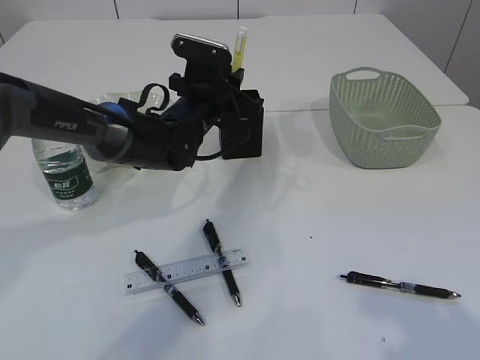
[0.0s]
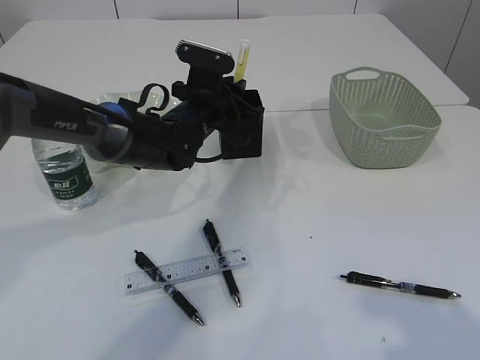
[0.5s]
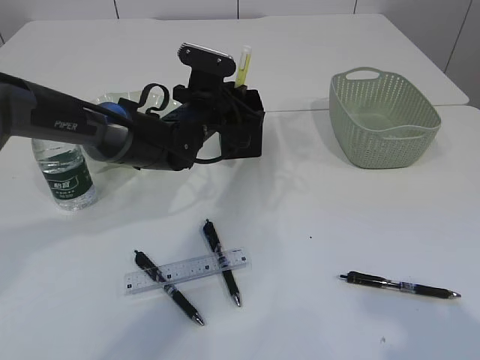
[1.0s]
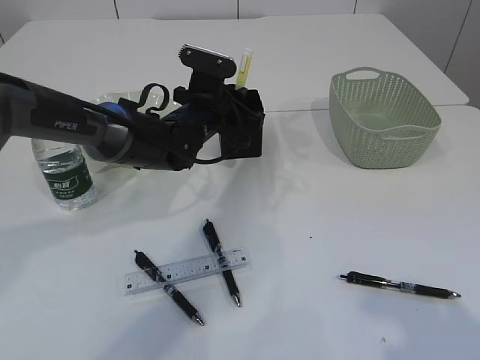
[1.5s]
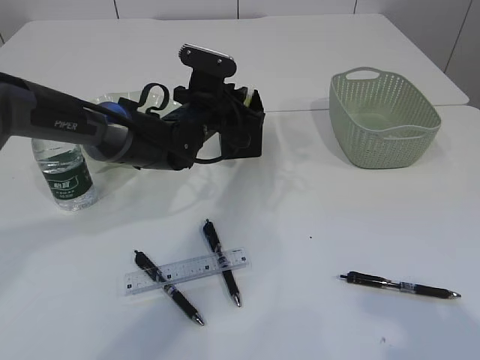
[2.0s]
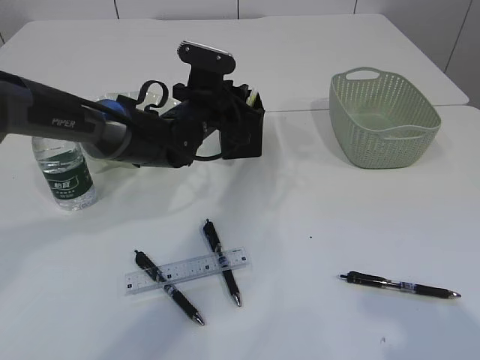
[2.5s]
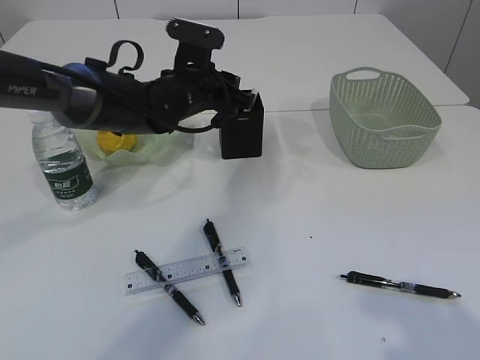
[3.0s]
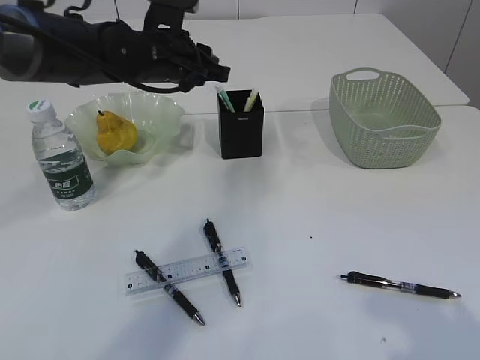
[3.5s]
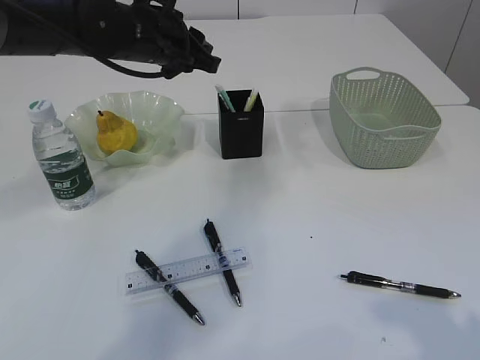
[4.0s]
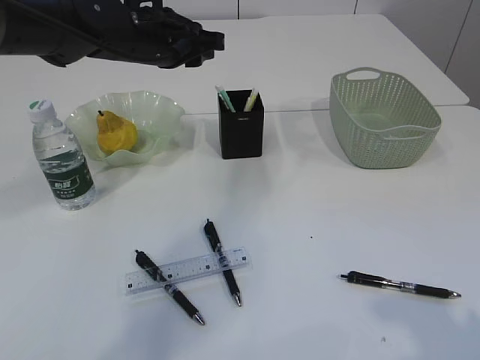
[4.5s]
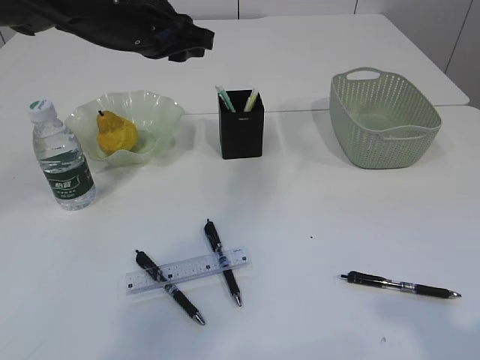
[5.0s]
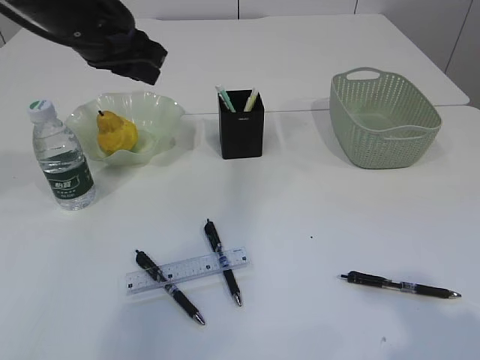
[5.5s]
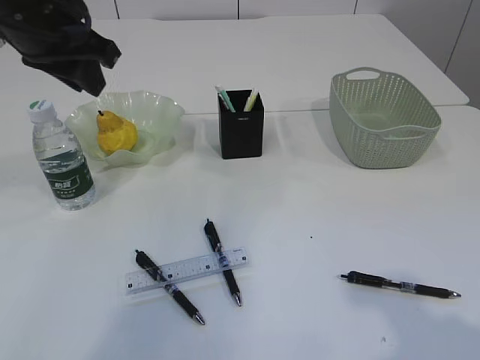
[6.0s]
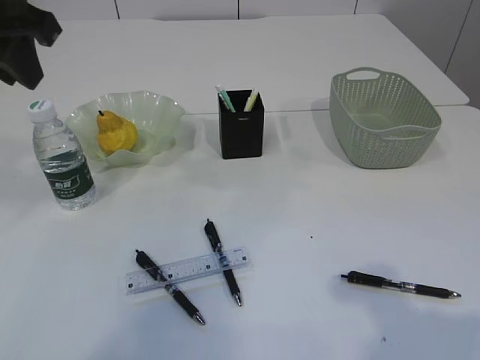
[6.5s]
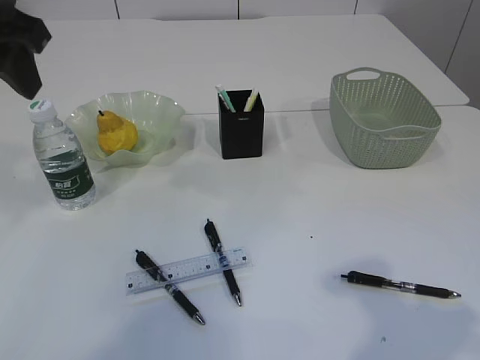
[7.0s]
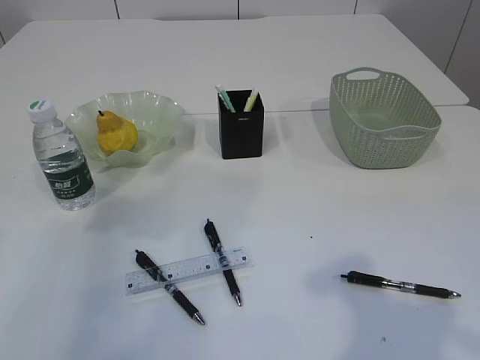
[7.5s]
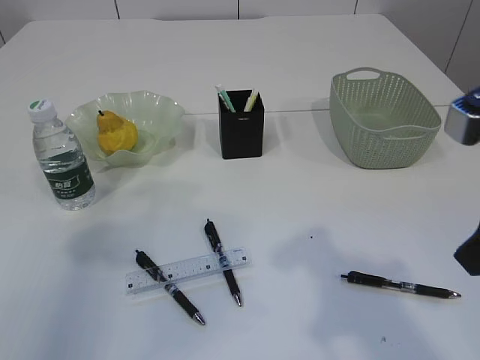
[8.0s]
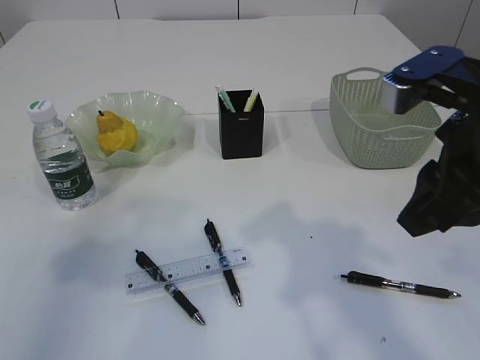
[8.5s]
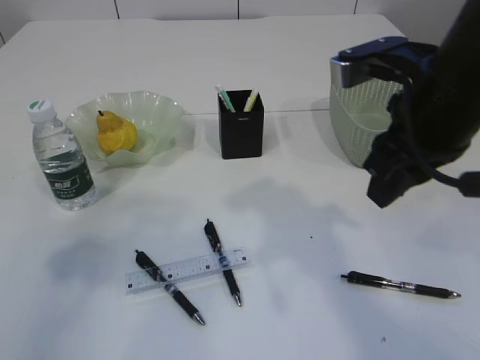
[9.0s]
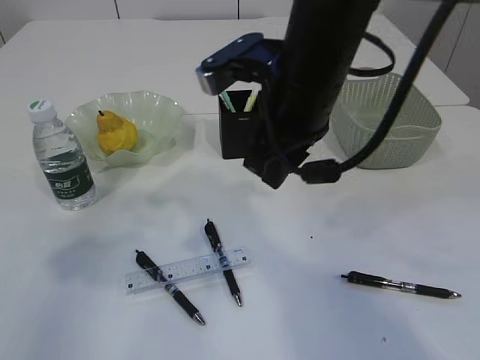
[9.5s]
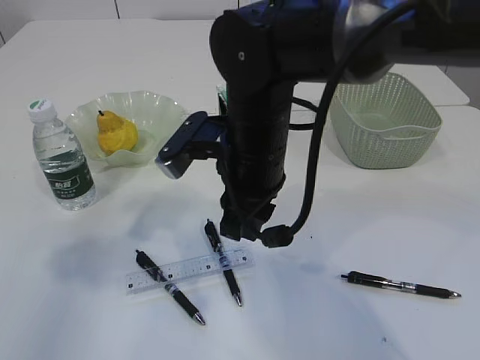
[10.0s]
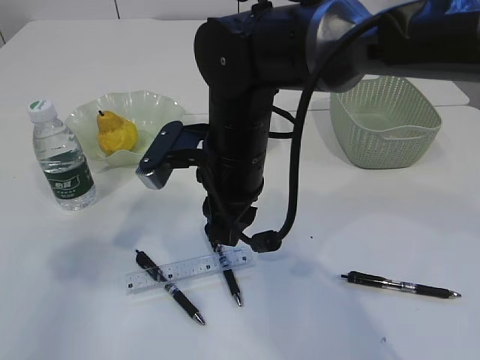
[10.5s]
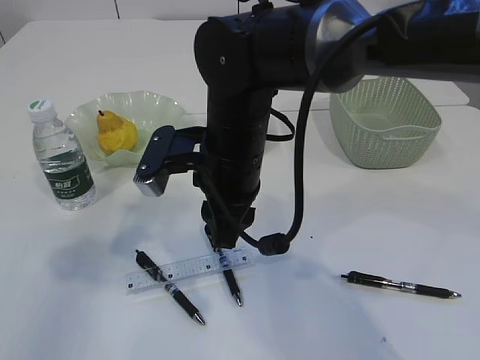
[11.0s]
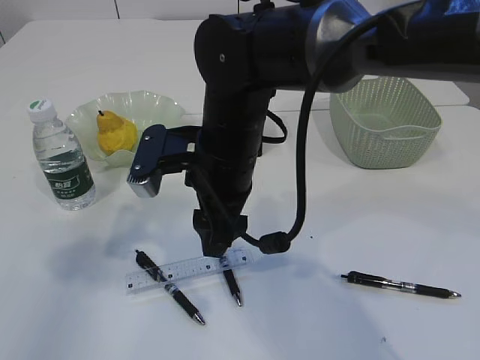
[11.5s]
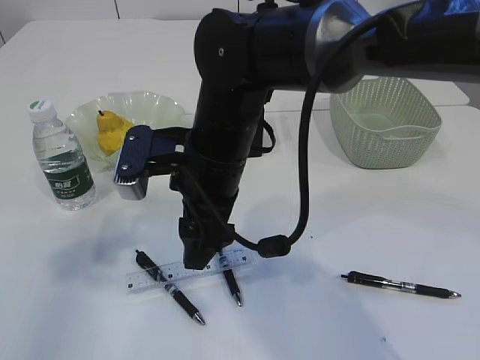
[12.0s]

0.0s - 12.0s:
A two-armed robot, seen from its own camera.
Step, 0.0s - 2.5s: place the yellow knife into the pen holder.
0.0s - 2.0s: The grippers make only small movements.
2.0s - 4.0s: The left gripper heads upward and to the left, covering some 15 cm.
4.0s - 6.0s: The left gripper moves backward, to the left and upward, roughly 15 cm.
6.0s - 8.0s: The right gripper heads forward and to the left, covering roughly 10 cm, while the left gripper is displaced backward and to the left by some 20 cm, and opens.
8.0s - 10.0s: The right gripper goes about 25 cm to the left and forward.
10.0s - 12.0s: The right gripper opens its fingers.

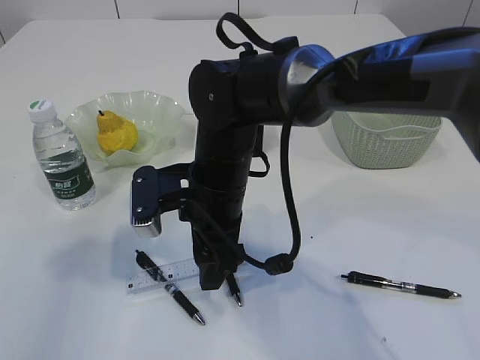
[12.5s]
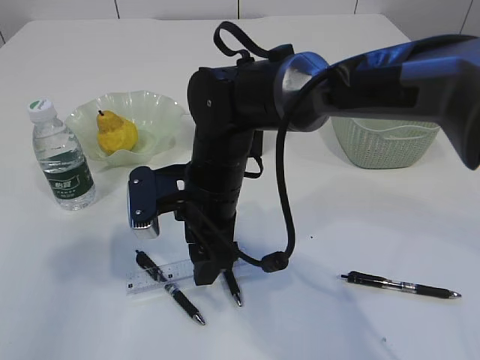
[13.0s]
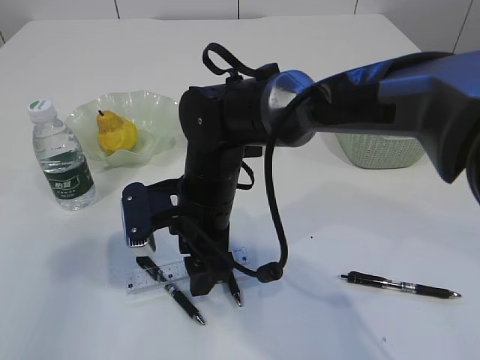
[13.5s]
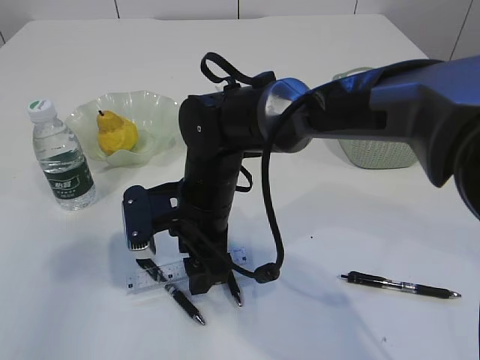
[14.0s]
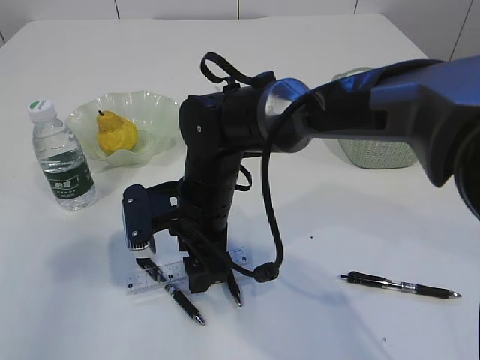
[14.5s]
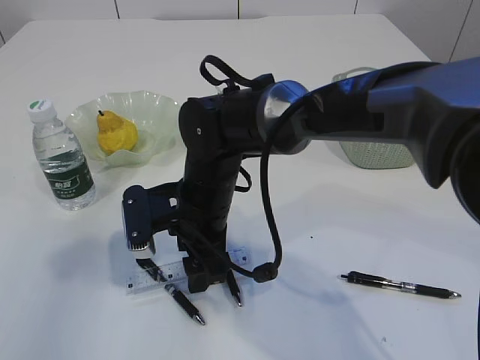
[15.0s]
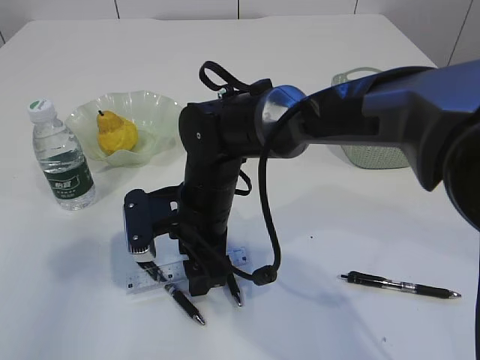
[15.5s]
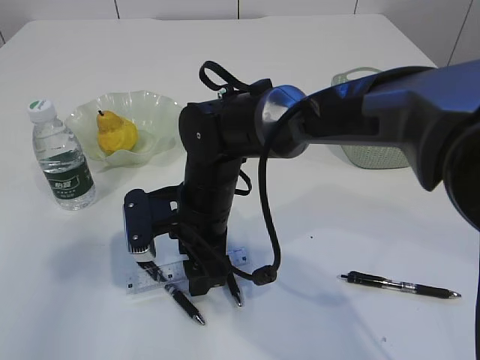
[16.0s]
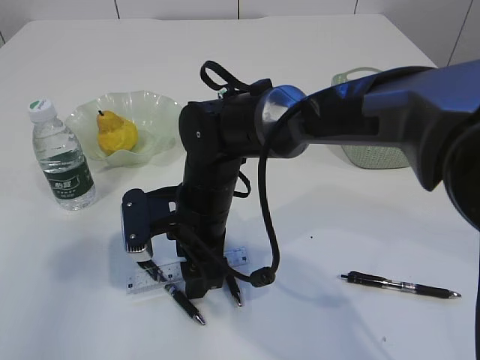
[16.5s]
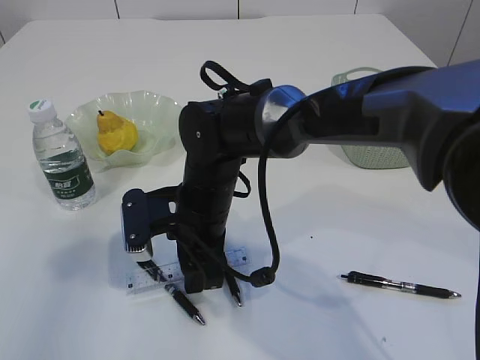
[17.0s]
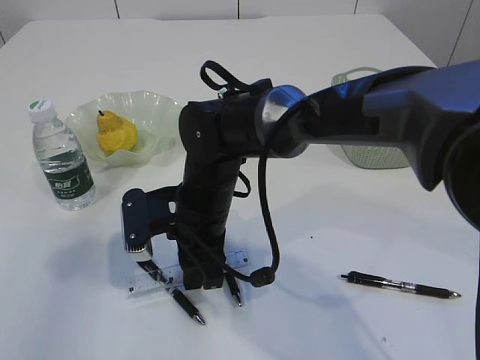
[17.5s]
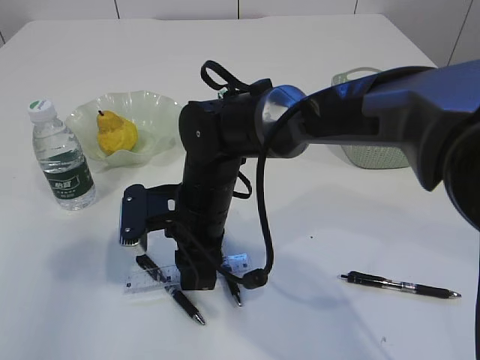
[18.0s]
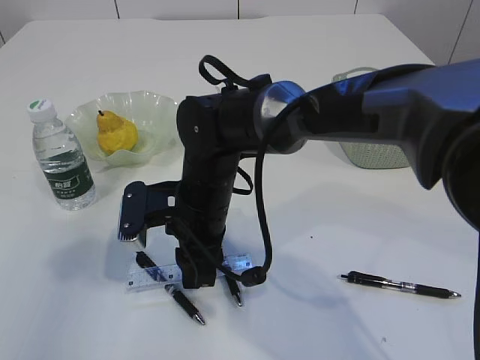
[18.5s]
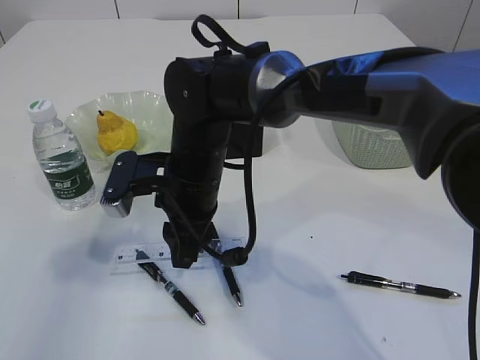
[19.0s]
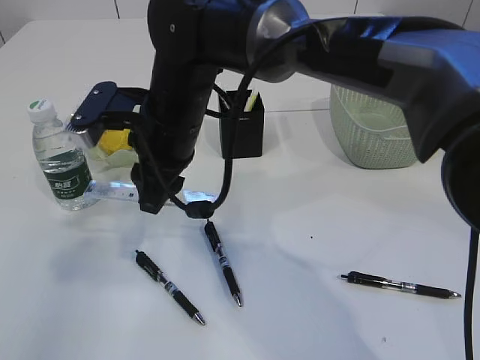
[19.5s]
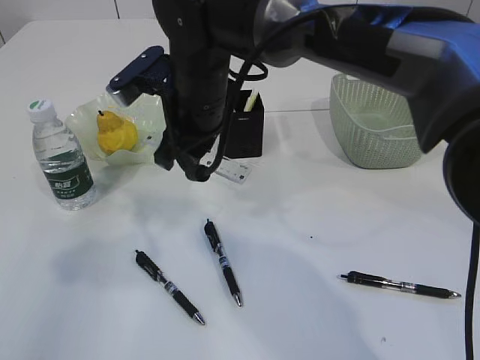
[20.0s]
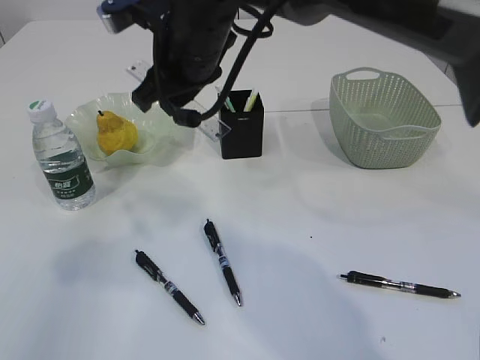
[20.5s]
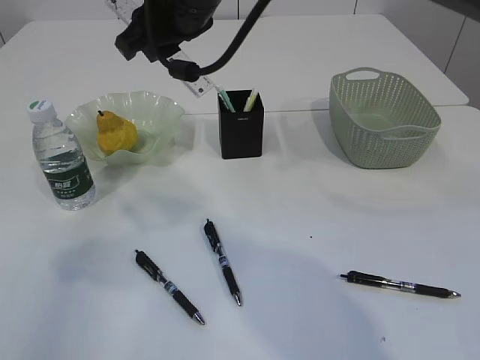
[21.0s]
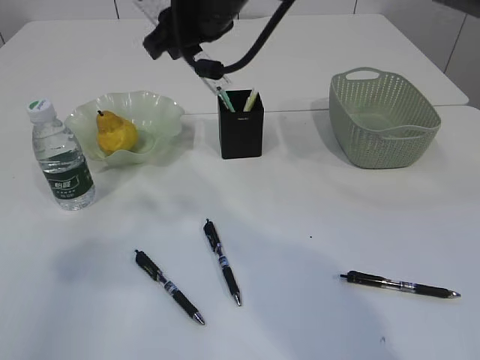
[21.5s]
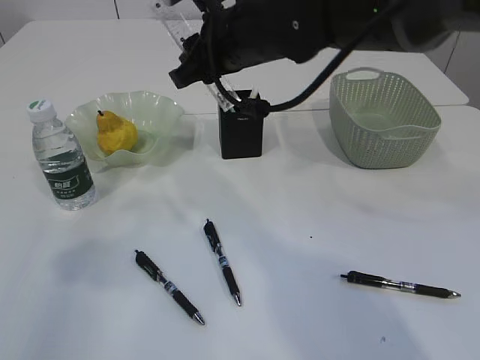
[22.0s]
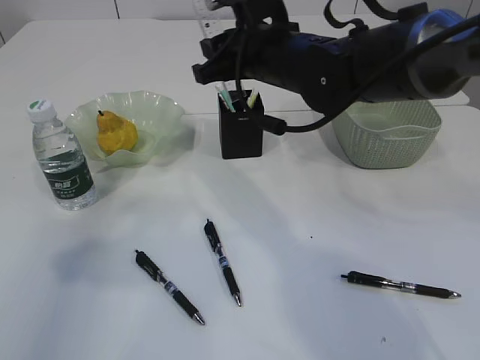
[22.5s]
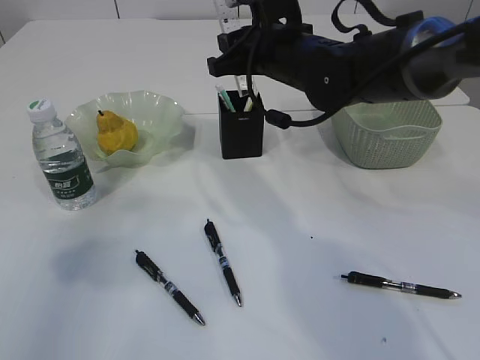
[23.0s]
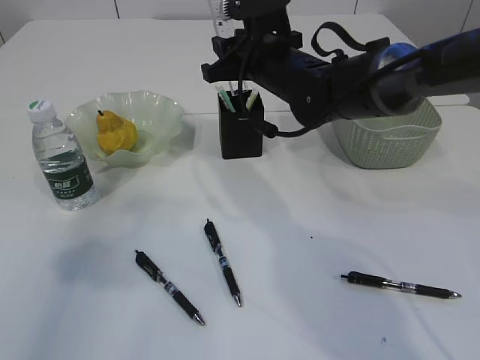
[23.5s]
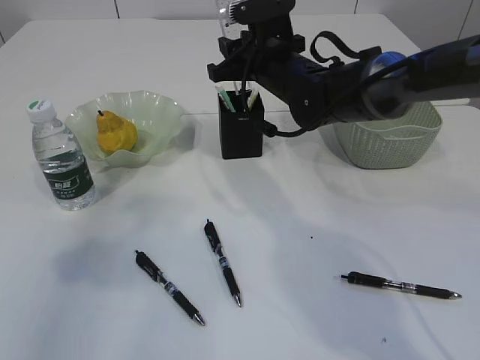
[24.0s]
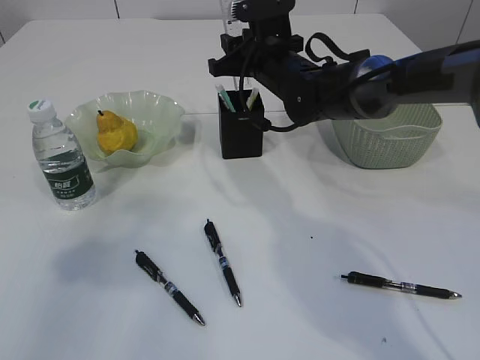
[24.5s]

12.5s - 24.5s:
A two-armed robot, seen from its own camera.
Step, 12.5s - 18.5s: pick up the ruler.
12.5s - 14.5s: The grippers move only a little.
14.5s - 16.5s: Both grippers stay put.
16.5s - 18.5s: The right gripper closes its fingers.
18.5s - 20.5s: The right gripper shifts some 15 cm upward.
20.5s - 22.5s: The right gripper travels to the right by some 10 cm.
22.5s - 24.5s: The right gripper moves forward and downward, approximately 10 cm.

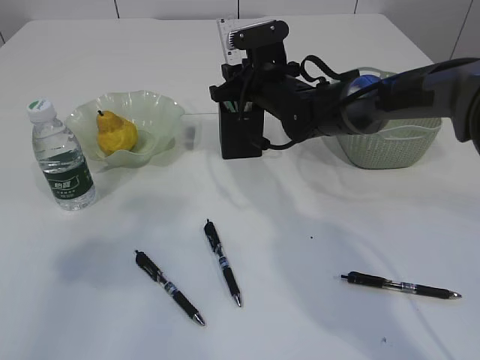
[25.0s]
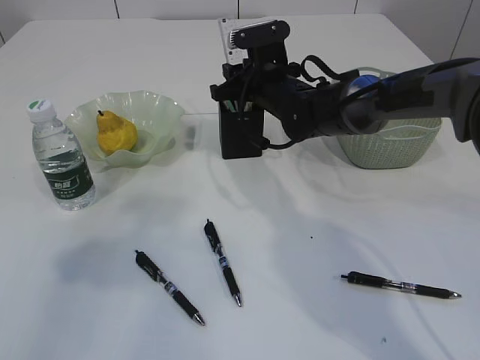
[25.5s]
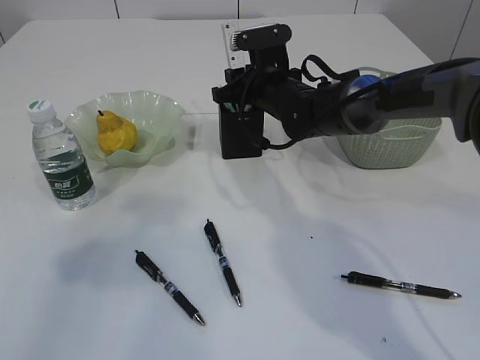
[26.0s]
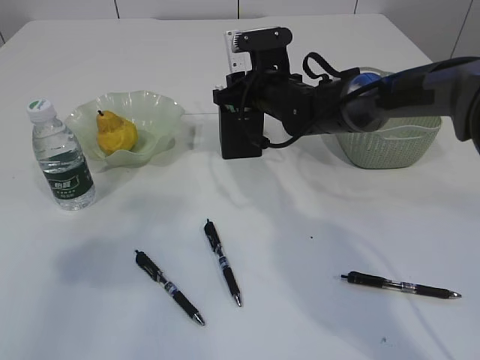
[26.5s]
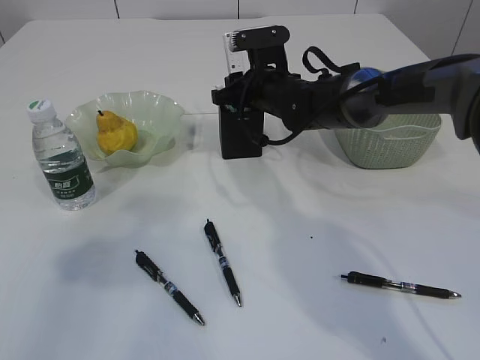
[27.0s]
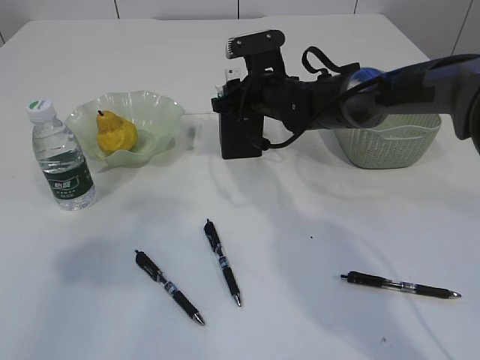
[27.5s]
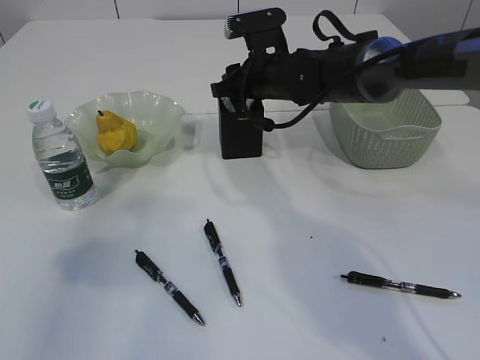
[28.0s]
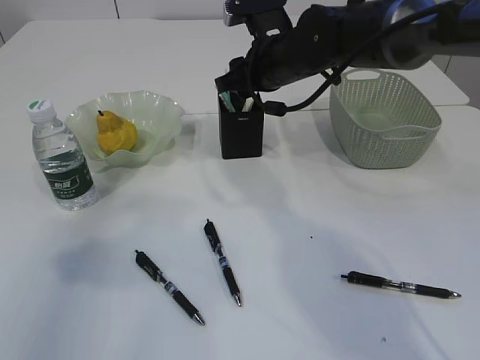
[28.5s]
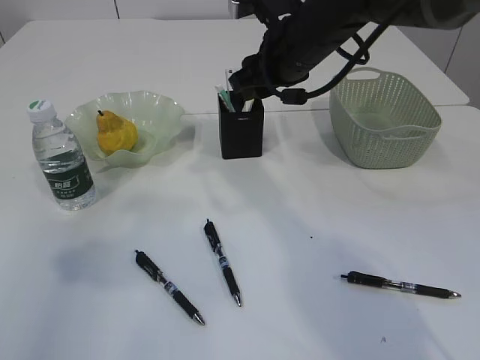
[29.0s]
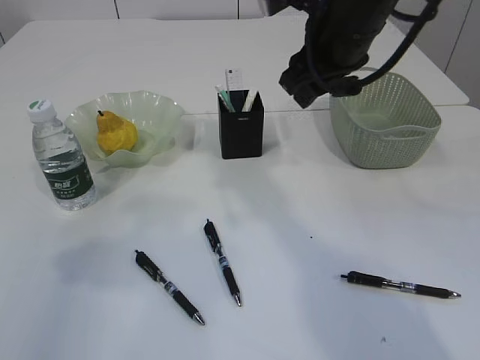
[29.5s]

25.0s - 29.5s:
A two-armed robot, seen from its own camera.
Step, 25.0s - 28.0s: Place the ruler into the pen holder.
25.0s - 27.0s: The grippers move only a little.
27.0s - 29.5s: The right gripper is displaced upward and backward by approximately 20 cm.
